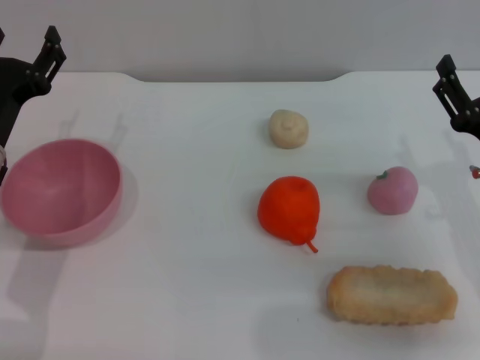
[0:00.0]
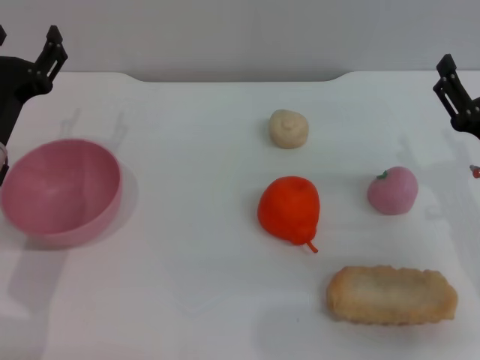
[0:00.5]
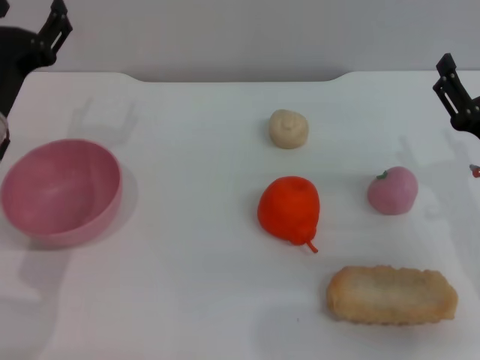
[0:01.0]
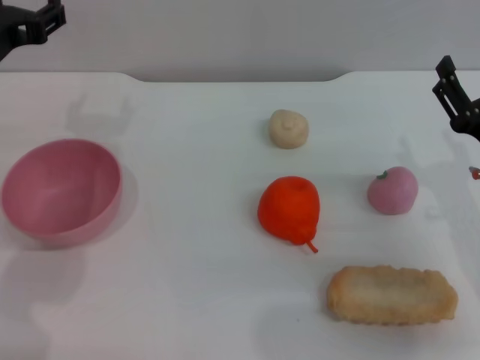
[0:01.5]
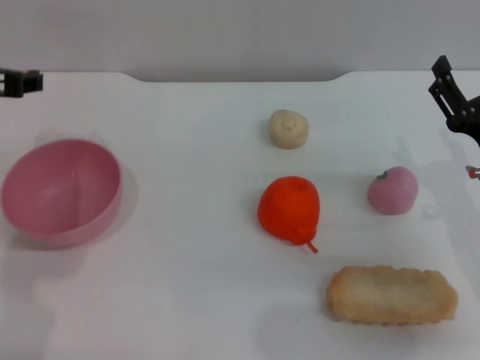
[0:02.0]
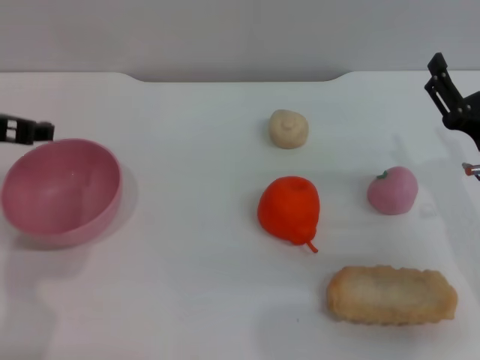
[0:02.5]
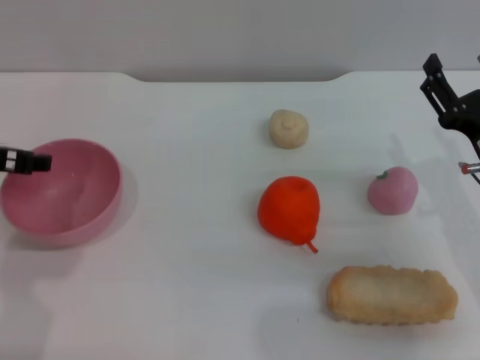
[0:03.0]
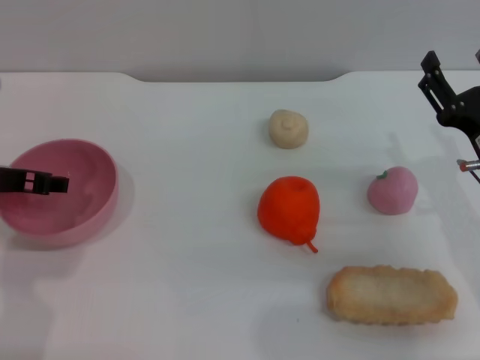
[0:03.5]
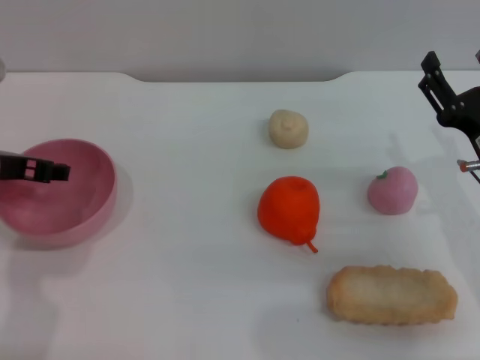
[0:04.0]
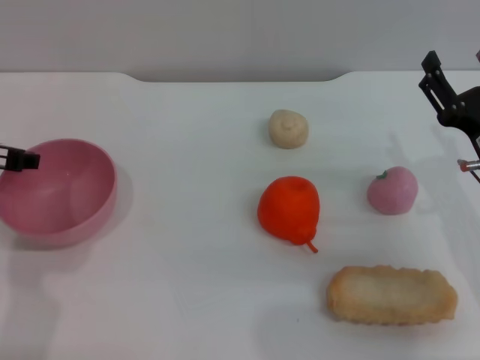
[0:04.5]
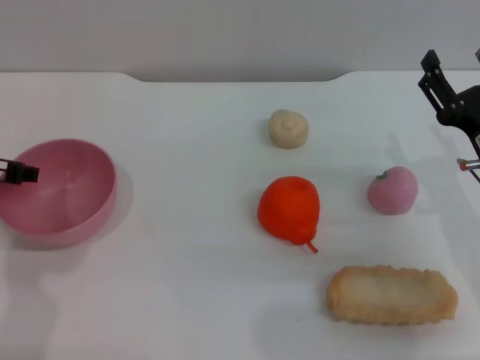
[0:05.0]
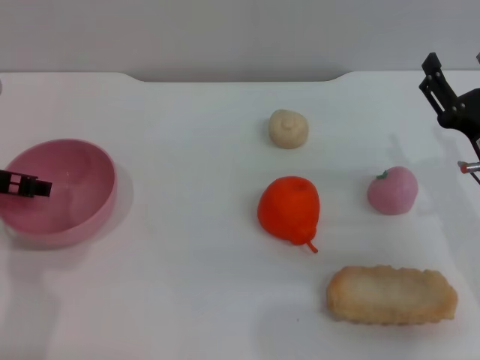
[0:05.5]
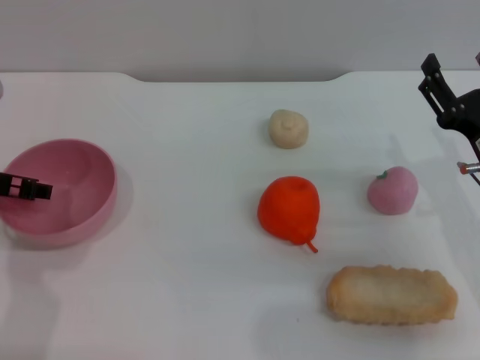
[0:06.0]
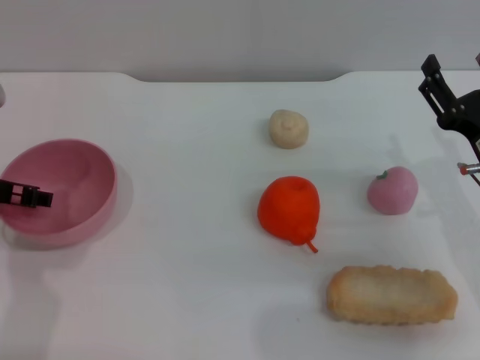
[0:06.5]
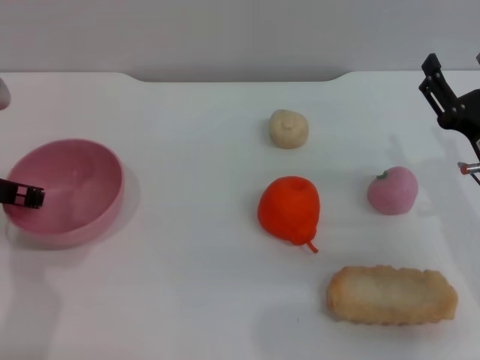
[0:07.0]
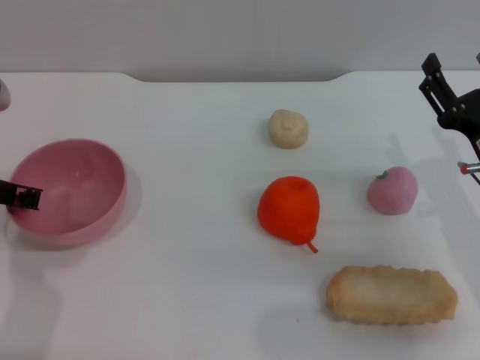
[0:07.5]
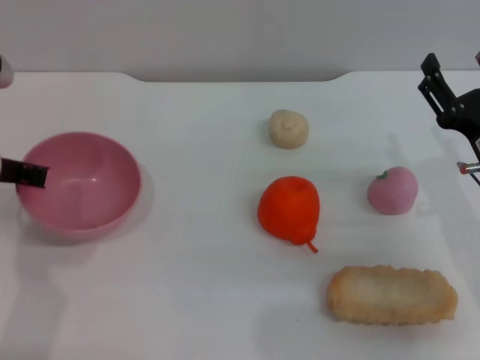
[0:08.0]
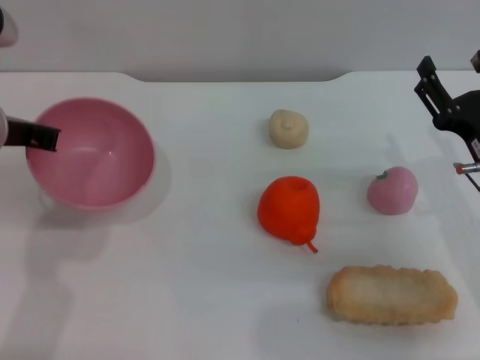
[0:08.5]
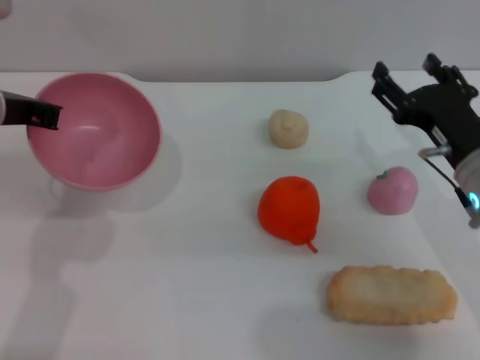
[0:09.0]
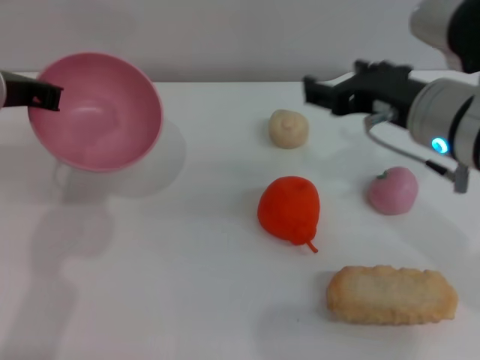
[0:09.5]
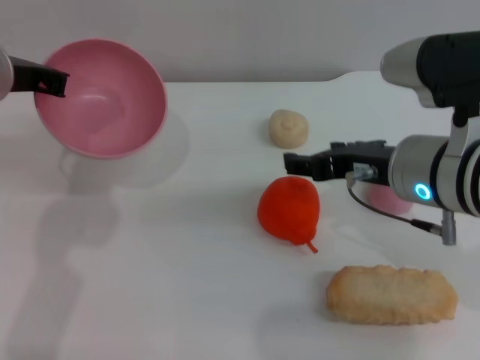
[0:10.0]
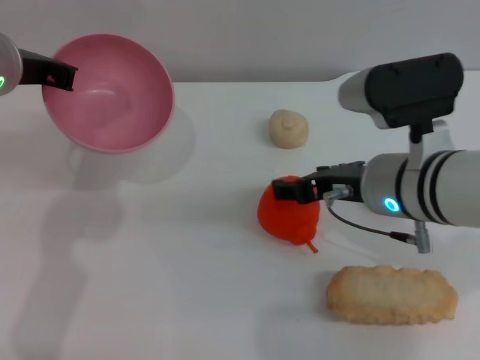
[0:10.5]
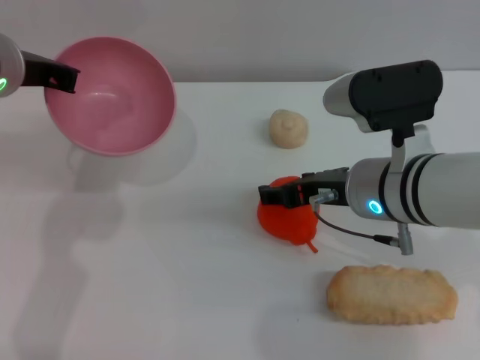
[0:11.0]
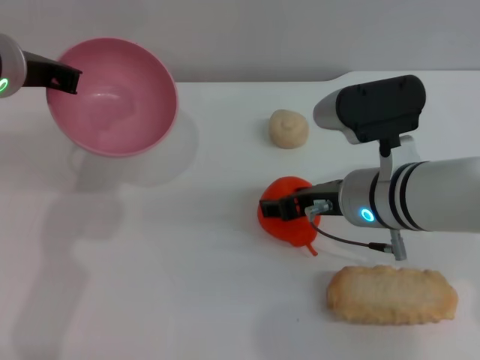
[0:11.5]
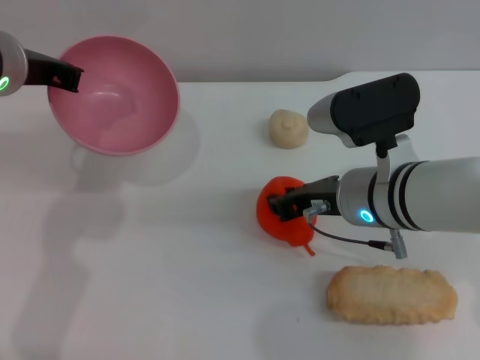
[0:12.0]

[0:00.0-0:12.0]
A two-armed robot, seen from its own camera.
Task of the whole recording: put the orange into the pink bowl and pour it out repeatedly.
Step, 0:00.0 to 0:08.0: Pick up the bowl with the left gripper.
0:00.0 to 0:02.0: The left gripper shifts about 10 cm upward.
0:02.0 to 0:04.0: The left gripper moves downward, some 5 cm.
0:04.0 to 0:06.0: The grippers stay close to where they were, moving slightly.
0:06.0 to 0:08.0: The left gripper closes its fingers.
0:08.0 to 0:10.0: The right gripper goes roughly 15 cm to the left and upward. The left gripper moves upward, about 5 cm.
0:10.0 to 0:12.0: The right gripper goes approximately 5 cm downward.

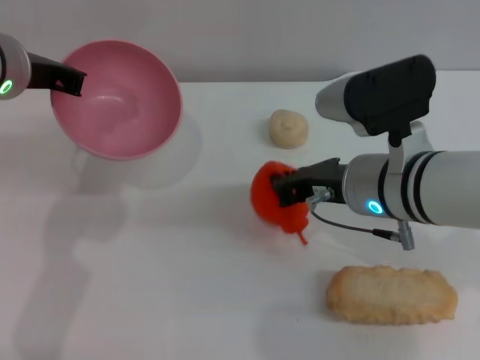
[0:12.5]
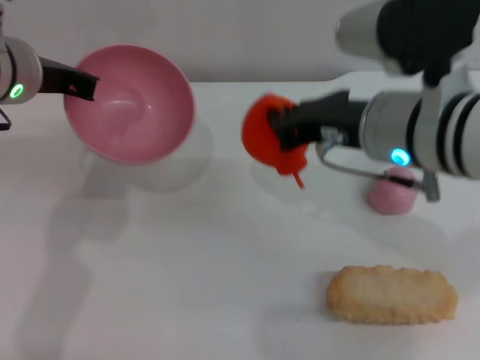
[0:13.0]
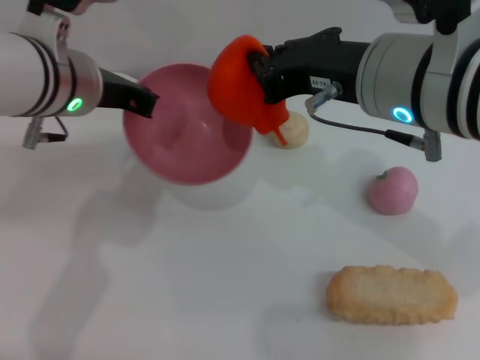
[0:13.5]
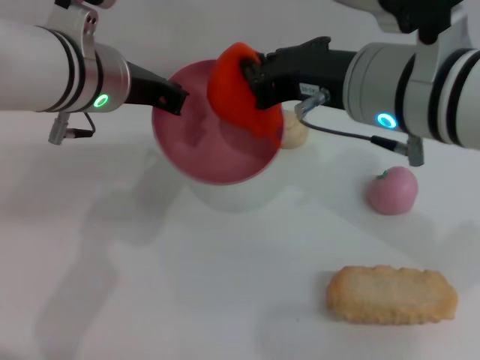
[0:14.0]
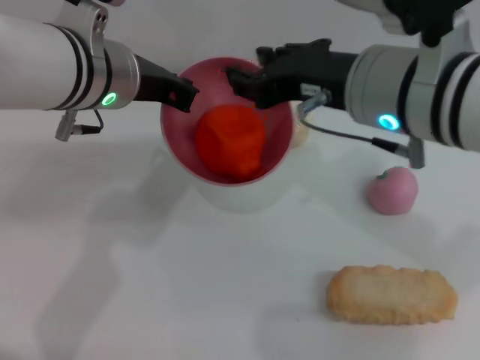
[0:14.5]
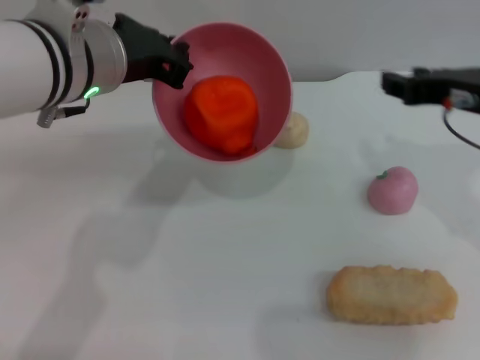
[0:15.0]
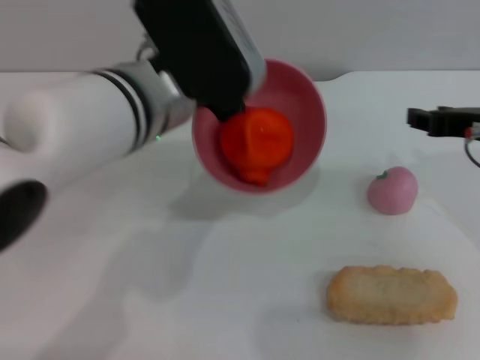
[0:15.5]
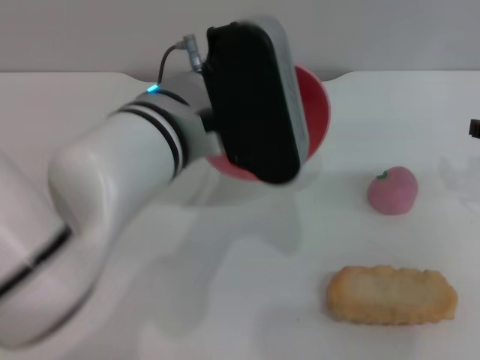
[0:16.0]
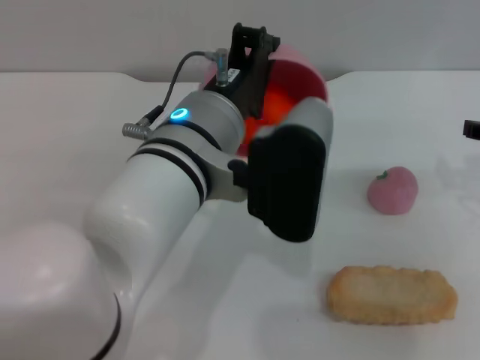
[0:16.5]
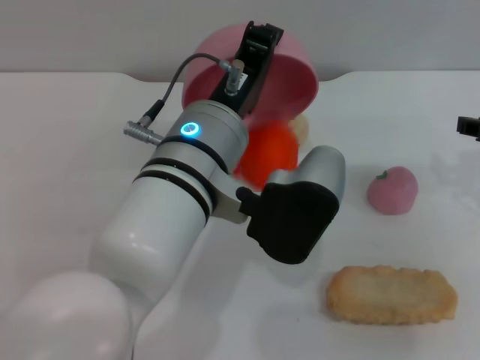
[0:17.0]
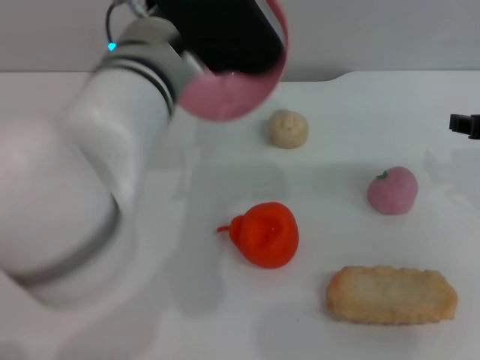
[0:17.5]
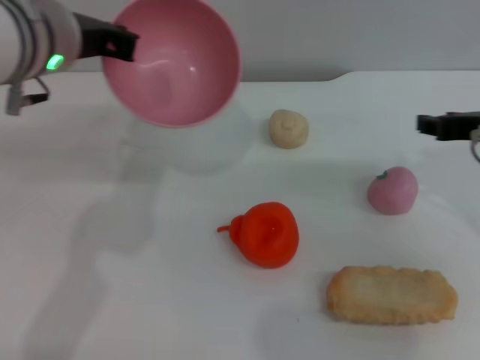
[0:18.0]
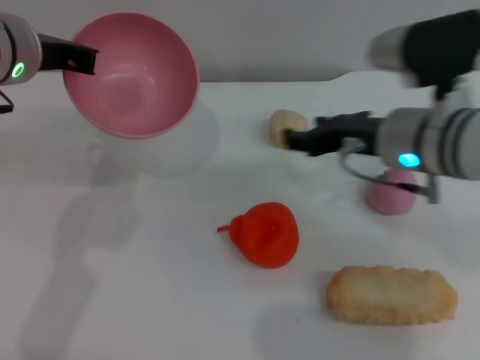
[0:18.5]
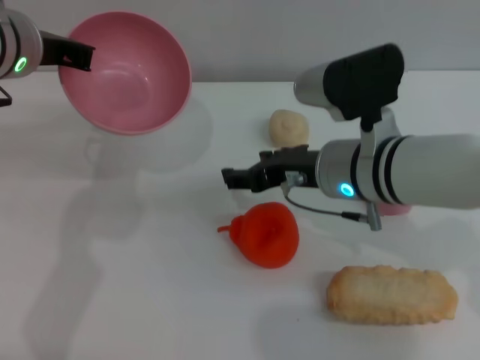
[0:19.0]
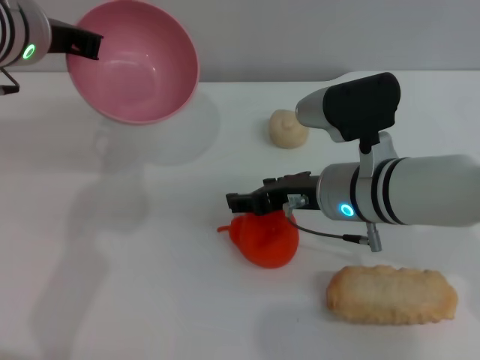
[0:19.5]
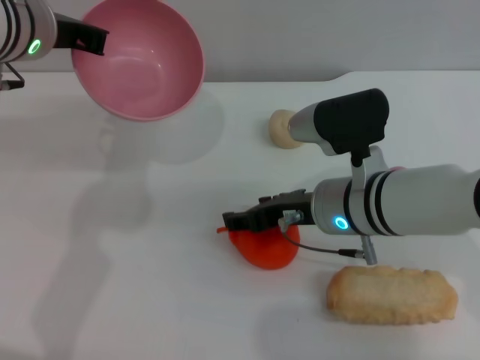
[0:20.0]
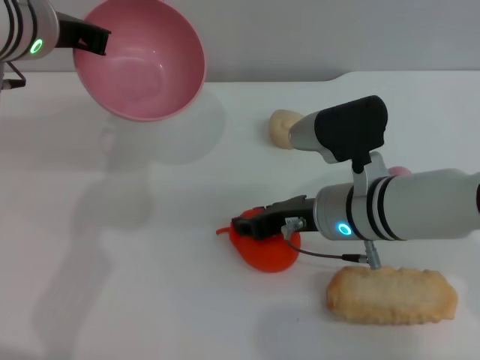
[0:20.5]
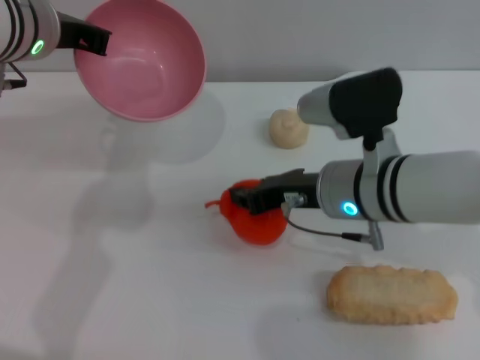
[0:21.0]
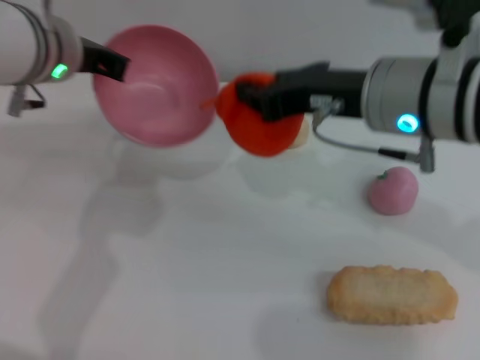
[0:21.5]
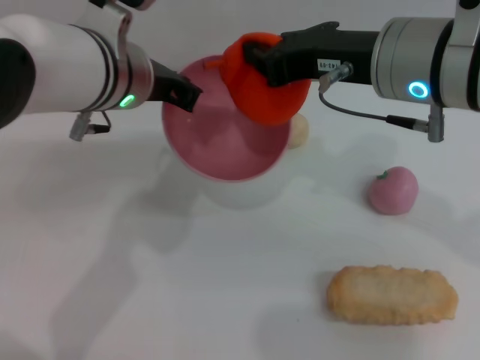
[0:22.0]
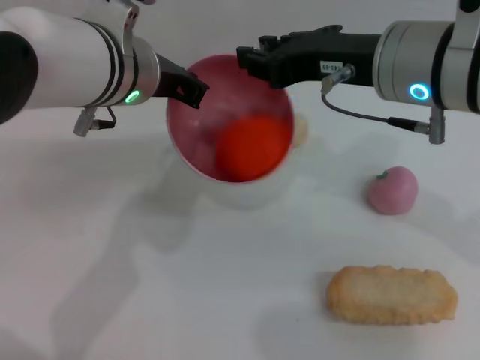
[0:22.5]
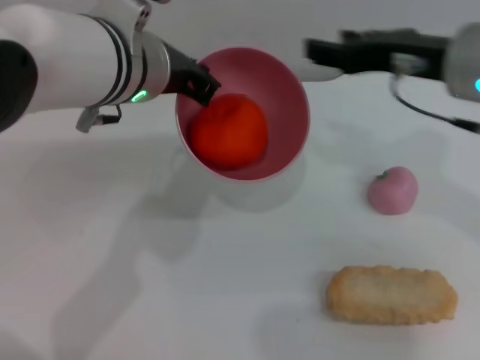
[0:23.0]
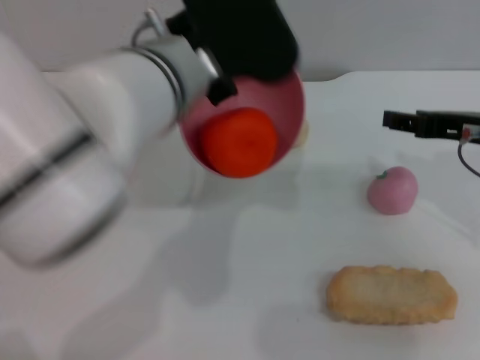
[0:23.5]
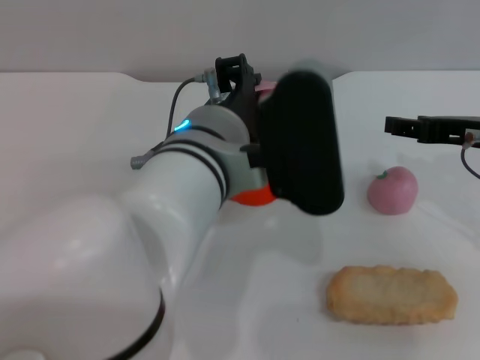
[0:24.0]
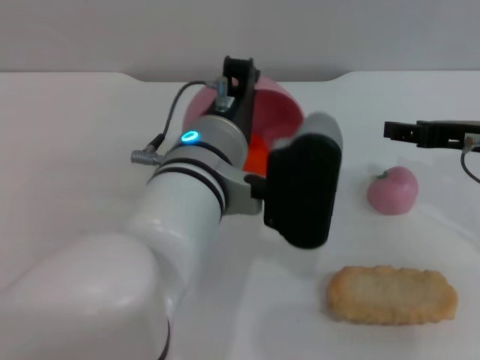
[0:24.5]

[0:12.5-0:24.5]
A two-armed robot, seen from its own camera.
Task of the whole recording: put the orange into the pink bowl and pour it out repeatedly.
Step, 0:13.5 to 0:14.5: Place the orange into the bowl.
Step, 0:15.0 to 0:17.0: Pour the orange out of the bowl.
Step, 0:17.5 to 0:21.0: Pick up the orange with the right gripper.
Step, 0:21.5 to 0:23.0: Place the orange into the bowl.
0:12.5 to 0:14.5: The right gripper heads upward, covering about 10 cm, while the left gripper heads to the right, covering roughly 10 cm.
0:14.5 to 0:16.5: The right gripper goes some 20 cm to the right. Meanwhile the left gripper is displaced to the right and backward by some 10 cm.
0:16.5 to 0:18.5: The right gripper heads to the left, covering about 15 cm, while the left gripper heads to the left and forward, covering roughly 15 cm.
0:18.5 to 0:20.5: The right gripper is displaced downward by some 5 cm.
0:20.5 to 0:22.5: The right gripper heads upward, covering some 15 cm, and closes its fingers; the left gripper heads to the right, covering about 5 cm.
0:22.5 to 0:24.5: The left gripper shifts roughly 10 cm to the right, backward and downward. The right gripper heads to the right and downward, covering approximately 15 cm, and opens its fingers.

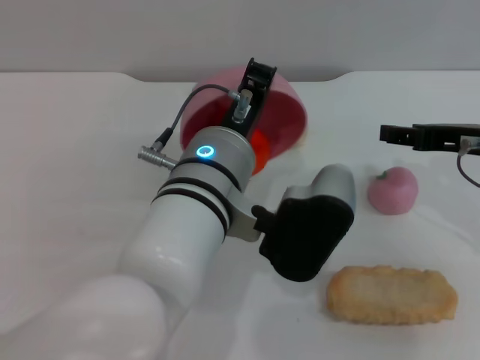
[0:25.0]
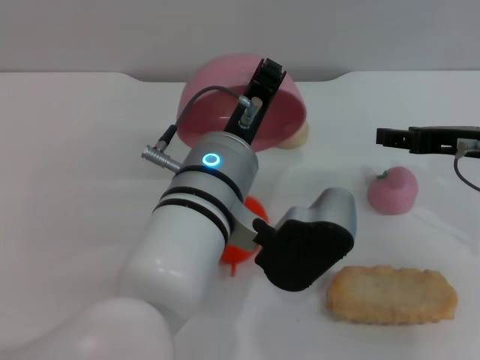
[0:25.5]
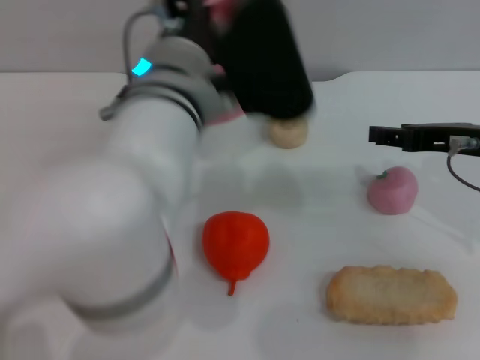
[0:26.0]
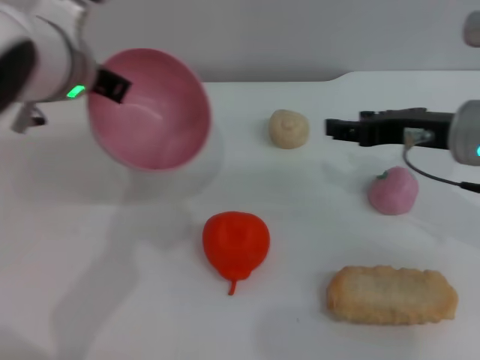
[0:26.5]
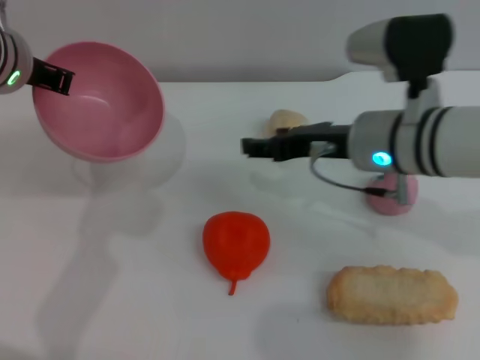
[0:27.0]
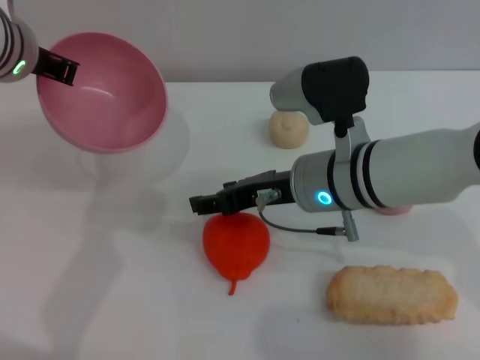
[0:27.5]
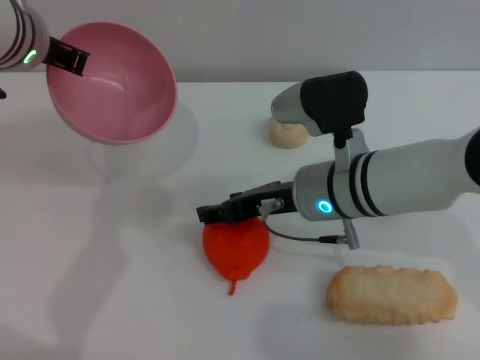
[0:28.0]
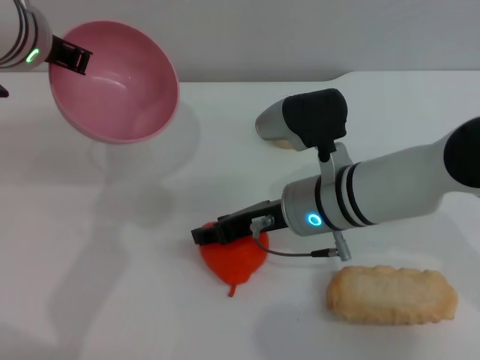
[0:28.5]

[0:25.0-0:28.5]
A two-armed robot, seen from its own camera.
Task of the whole recording: put the orange into the pink bowl and pour it out repeatedly.
0:25.0 to 0:27.0: The right gripper heads to the left, covering about 10 cm; the left gripper is displaced to the left, forward and upward by roughly 20 cm.
0:27.0 to 0:28.5: The right gripper shifts about 10 cm to the left and downward.
